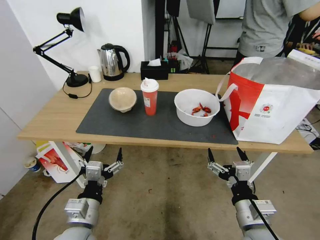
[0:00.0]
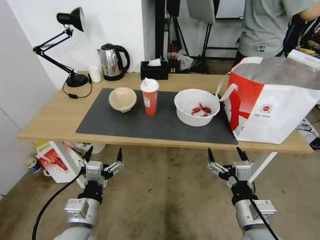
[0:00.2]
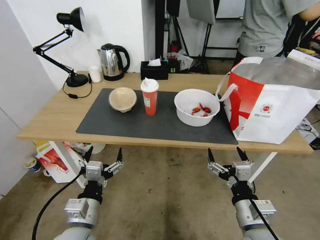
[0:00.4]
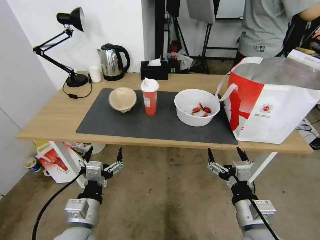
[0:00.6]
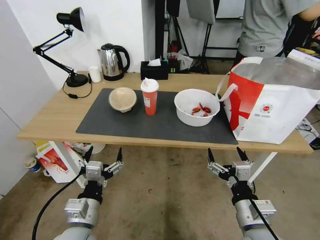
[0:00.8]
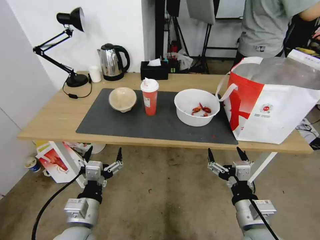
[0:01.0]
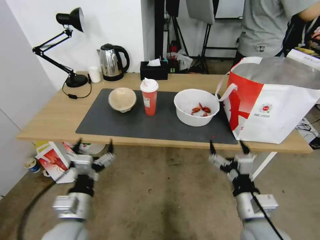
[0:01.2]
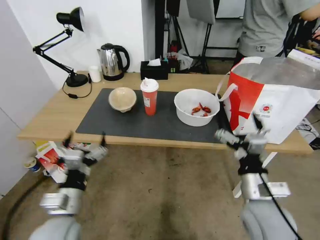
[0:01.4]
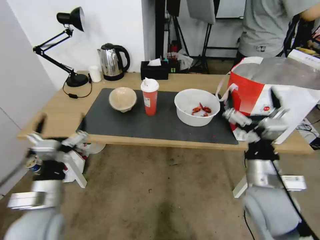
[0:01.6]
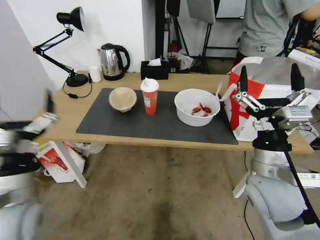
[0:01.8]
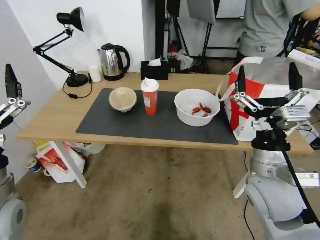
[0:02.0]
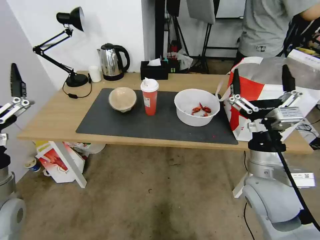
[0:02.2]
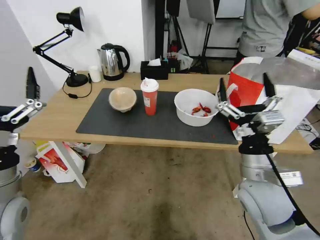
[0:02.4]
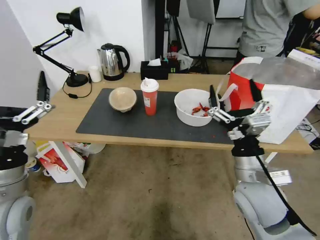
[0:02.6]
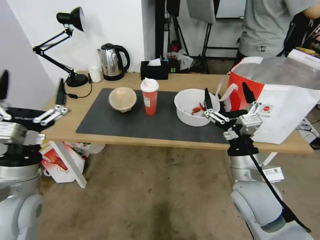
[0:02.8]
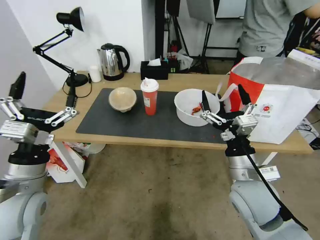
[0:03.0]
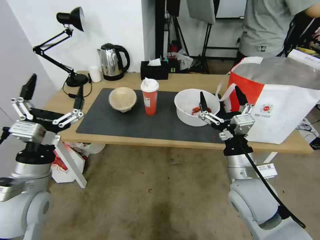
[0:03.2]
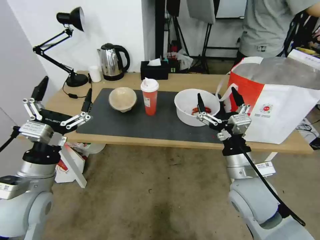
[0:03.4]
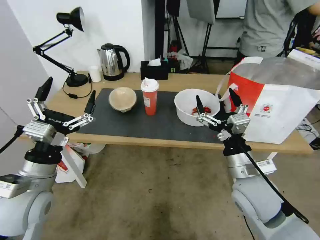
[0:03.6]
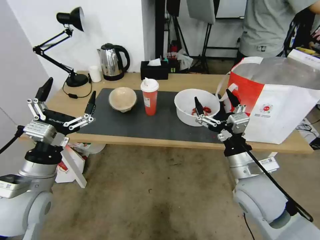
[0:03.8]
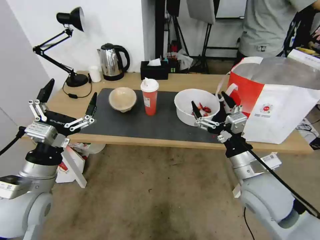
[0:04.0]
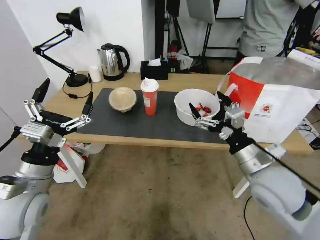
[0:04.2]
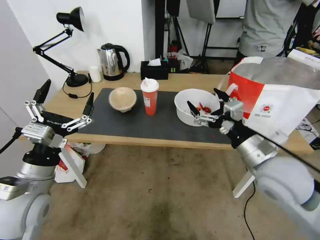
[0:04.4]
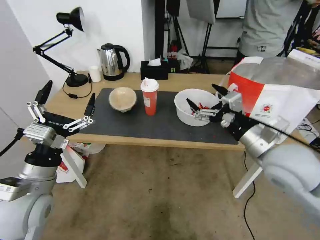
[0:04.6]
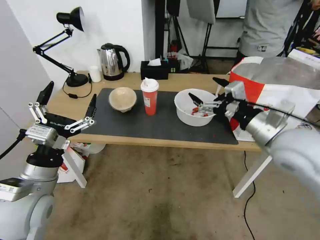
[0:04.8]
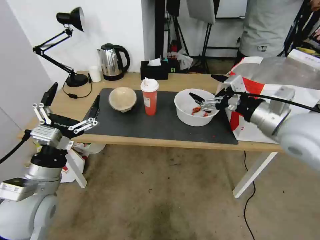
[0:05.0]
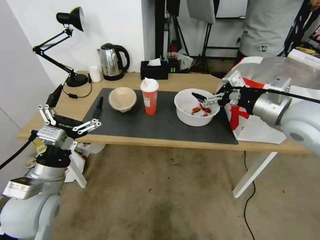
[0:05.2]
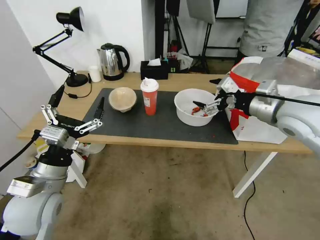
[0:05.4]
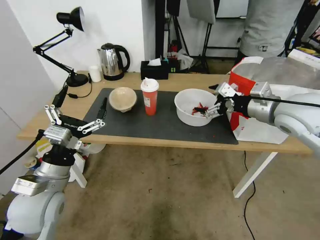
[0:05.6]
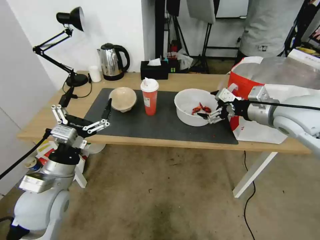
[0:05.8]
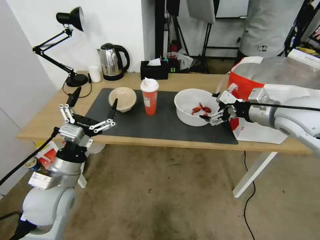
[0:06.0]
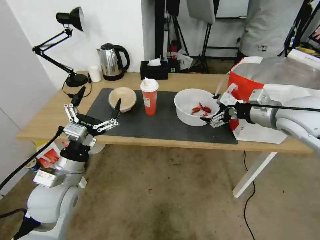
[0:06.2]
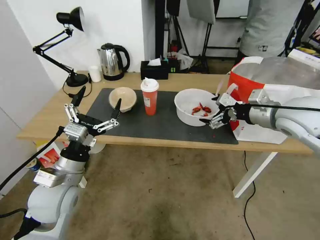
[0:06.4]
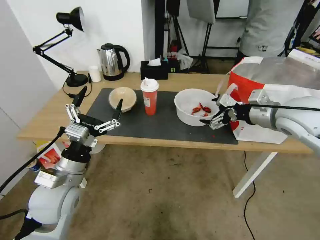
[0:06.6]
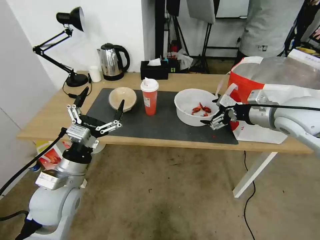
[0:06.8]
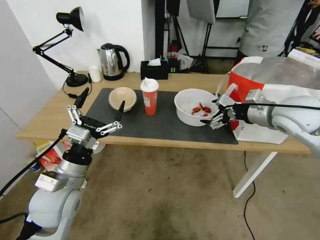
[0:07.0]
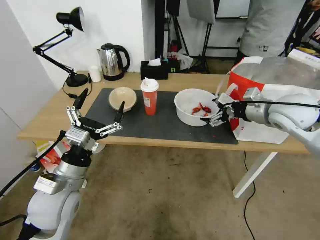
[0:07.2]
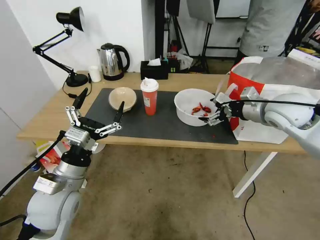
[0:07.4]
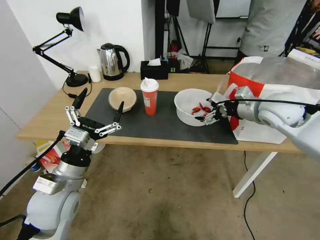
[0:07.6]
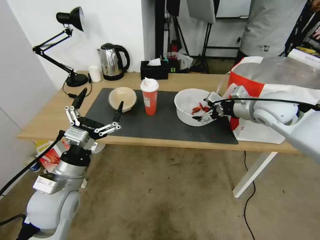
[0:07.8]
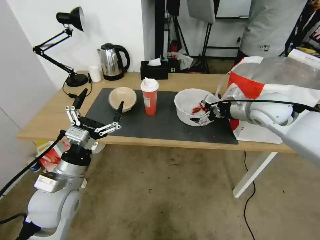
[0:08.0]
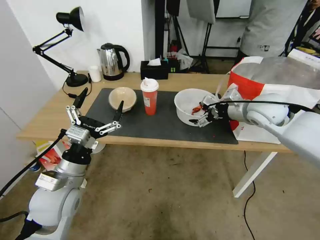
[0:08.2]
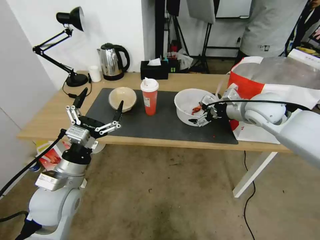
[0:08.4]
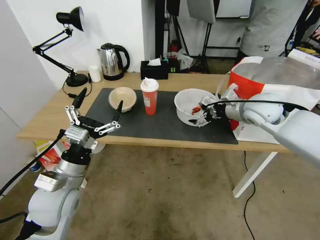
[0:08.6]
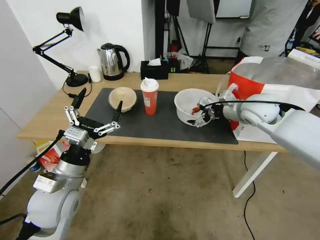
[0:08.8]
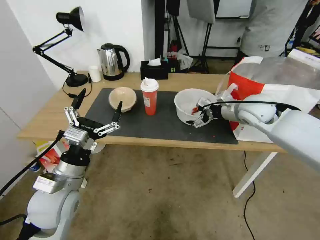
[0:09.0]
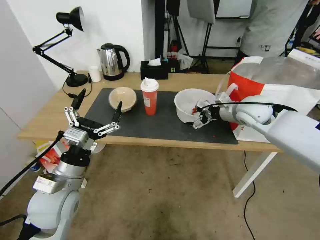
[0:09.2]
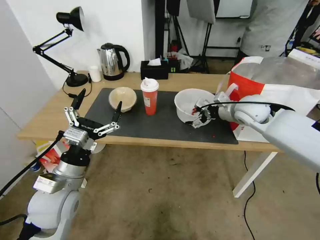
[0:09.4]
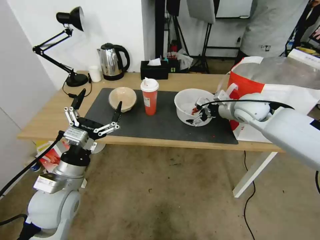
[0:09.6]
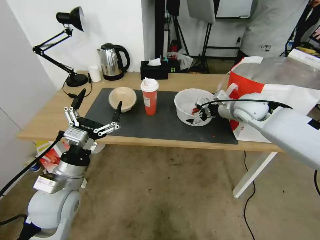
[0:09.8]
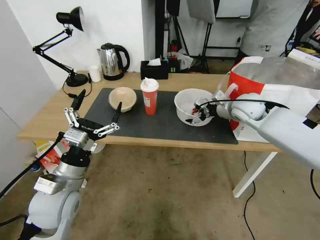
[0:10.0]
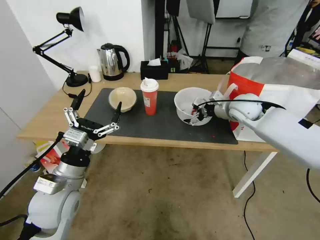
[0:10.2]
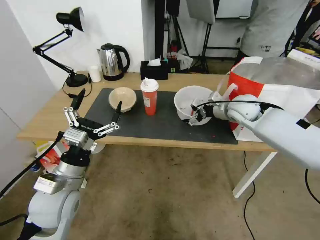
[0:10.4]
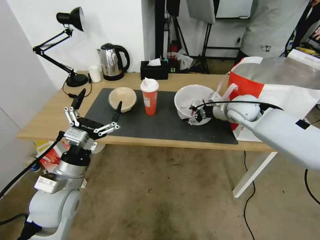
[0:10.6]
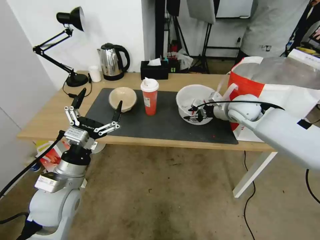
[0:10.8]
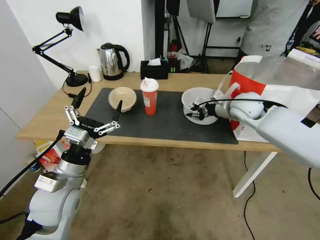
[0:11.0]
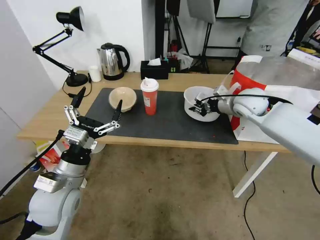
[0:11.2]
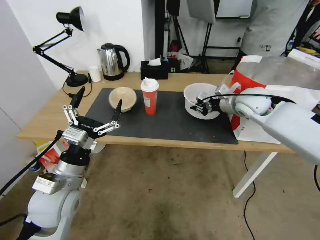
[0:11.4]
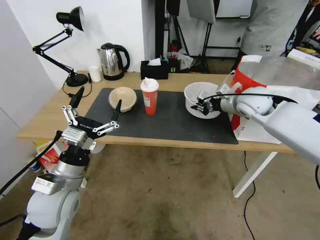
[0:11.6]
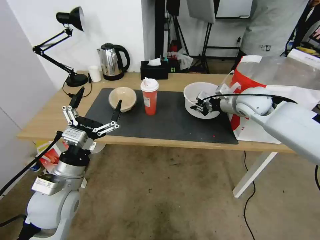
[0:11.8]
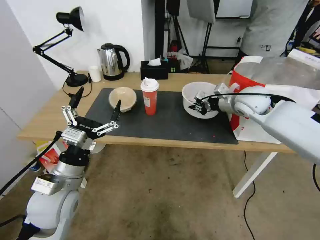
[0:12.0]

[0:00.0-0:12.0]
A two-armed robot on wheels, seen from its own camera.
Task of the whole recording: Pick up the trash from the table and place it into the takeout bag.
0:01.6 to 0:03.0: The left gripper travels upward by some 5 cm.
0:03.0 to 0:04.4: The right gripper heads upward, covering some 5 cm.
0:04.4 to 0:06.0: The left gripper shifts by about 5 cm. Meanwhile the right gripper is displaced forward, upward and to the right by roughly 15 cm.
0:06.0 to 0:07.6: The right gripper changes place by about 5 cm.
0:07.6 to 0:09.0: The right gripper changes place by approximately 5 cm.
0:09.0 to 0:10.4: The right gripper shifts by some 5 cm.
0:10.4 to 0:12.0: The right gripper closes its fingers.

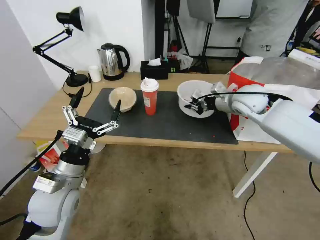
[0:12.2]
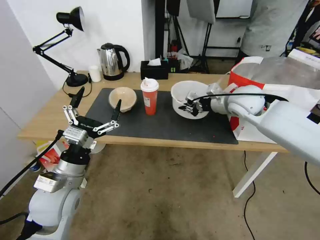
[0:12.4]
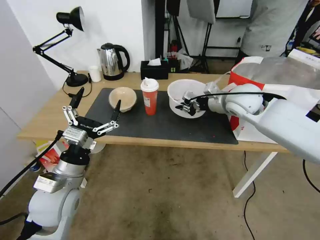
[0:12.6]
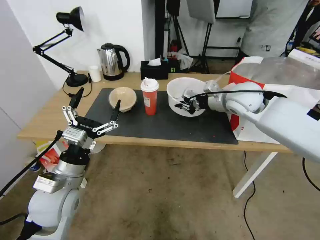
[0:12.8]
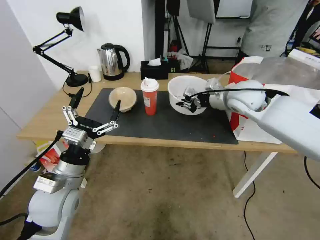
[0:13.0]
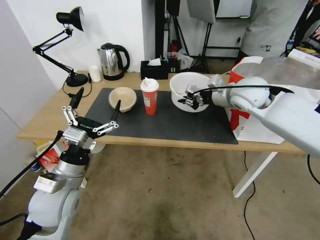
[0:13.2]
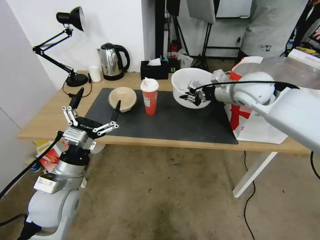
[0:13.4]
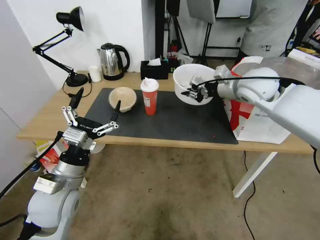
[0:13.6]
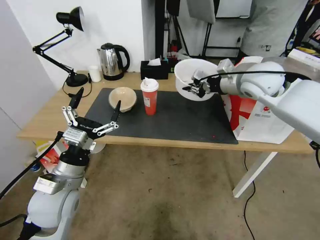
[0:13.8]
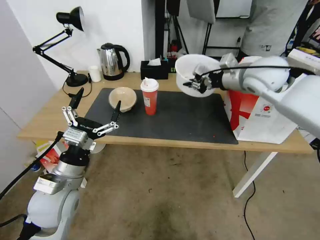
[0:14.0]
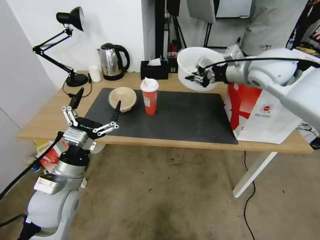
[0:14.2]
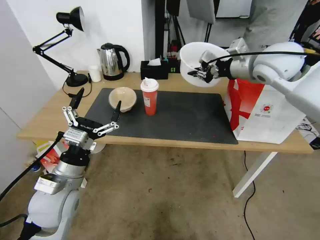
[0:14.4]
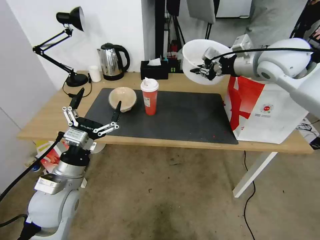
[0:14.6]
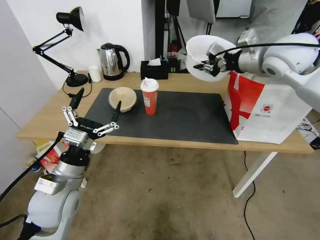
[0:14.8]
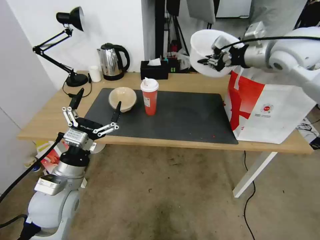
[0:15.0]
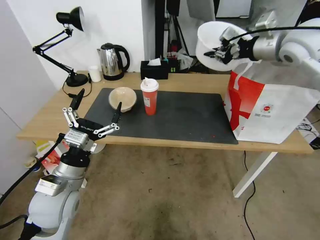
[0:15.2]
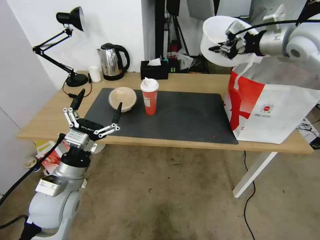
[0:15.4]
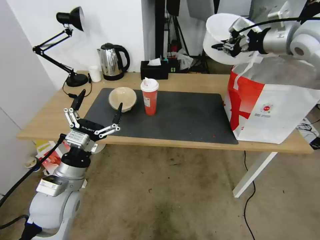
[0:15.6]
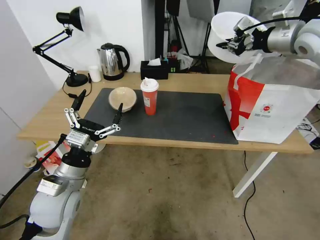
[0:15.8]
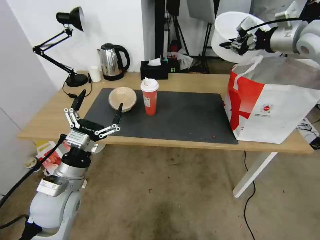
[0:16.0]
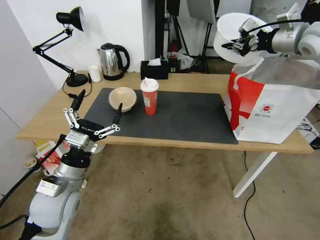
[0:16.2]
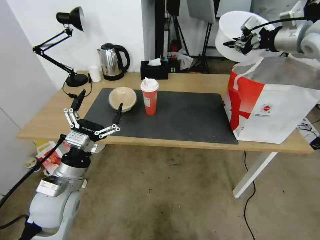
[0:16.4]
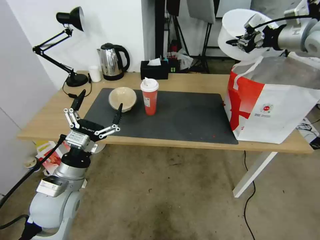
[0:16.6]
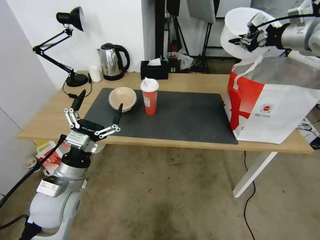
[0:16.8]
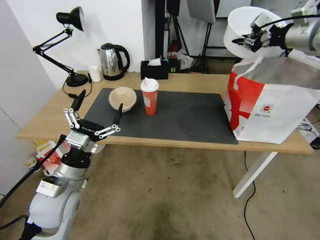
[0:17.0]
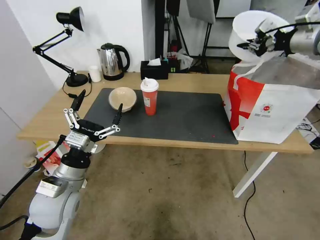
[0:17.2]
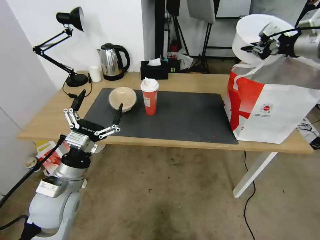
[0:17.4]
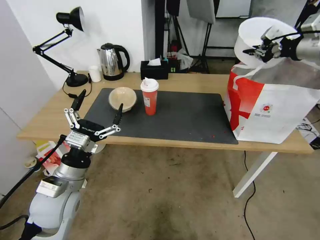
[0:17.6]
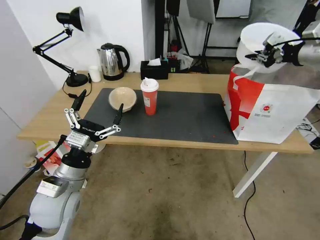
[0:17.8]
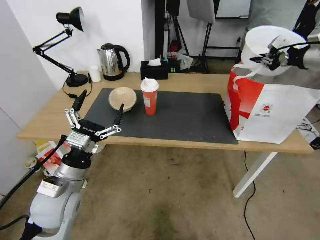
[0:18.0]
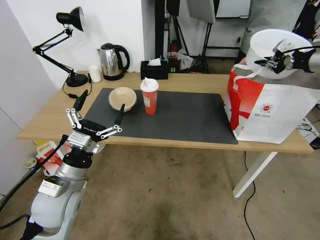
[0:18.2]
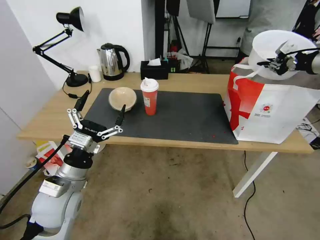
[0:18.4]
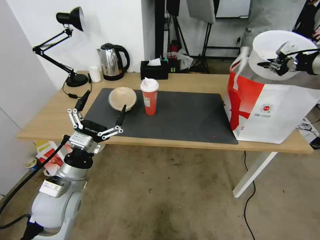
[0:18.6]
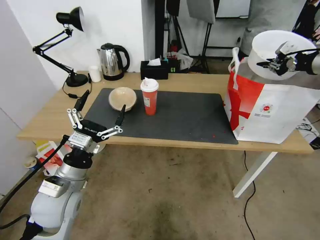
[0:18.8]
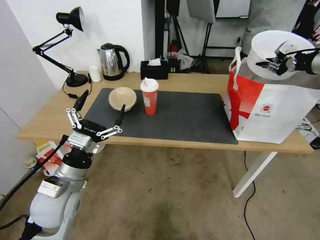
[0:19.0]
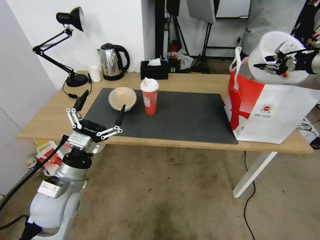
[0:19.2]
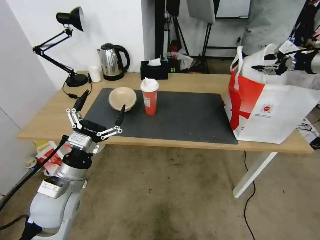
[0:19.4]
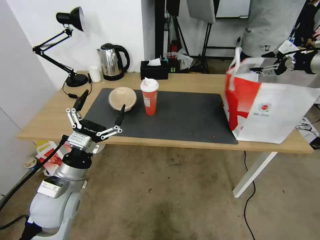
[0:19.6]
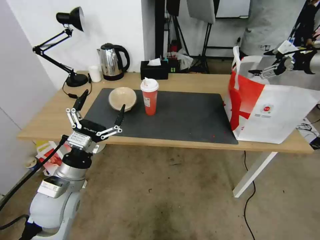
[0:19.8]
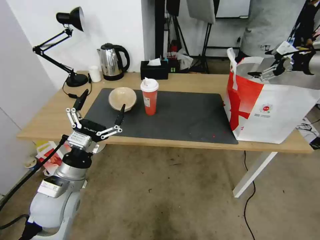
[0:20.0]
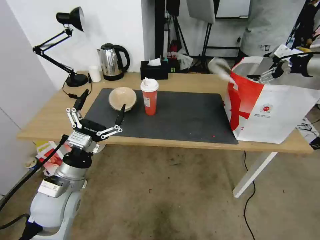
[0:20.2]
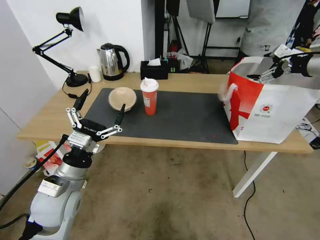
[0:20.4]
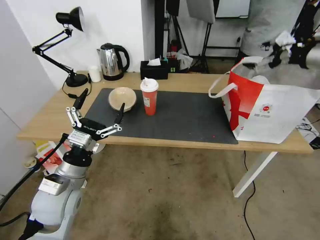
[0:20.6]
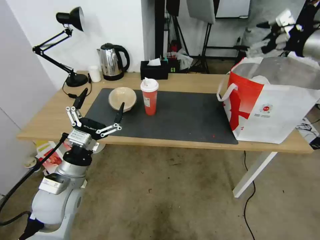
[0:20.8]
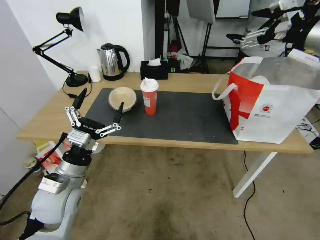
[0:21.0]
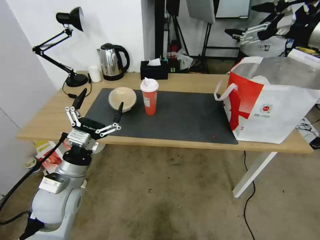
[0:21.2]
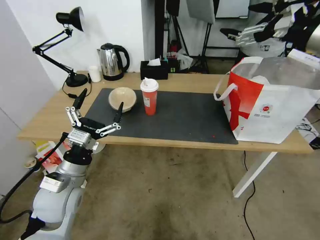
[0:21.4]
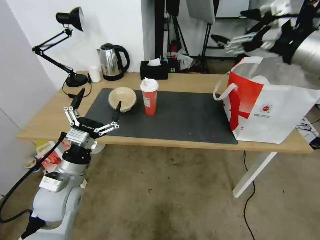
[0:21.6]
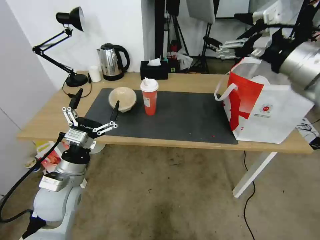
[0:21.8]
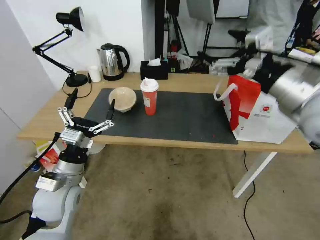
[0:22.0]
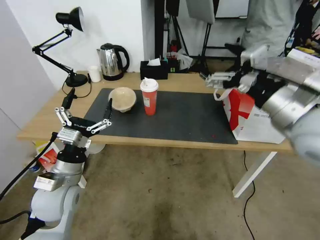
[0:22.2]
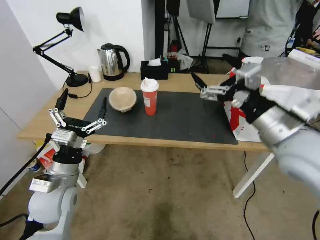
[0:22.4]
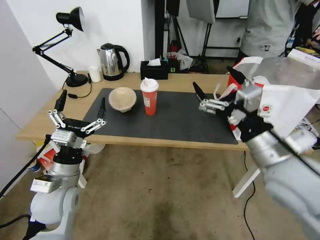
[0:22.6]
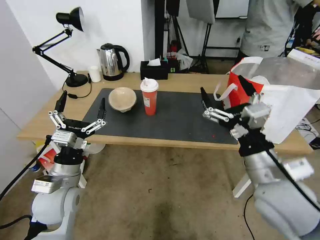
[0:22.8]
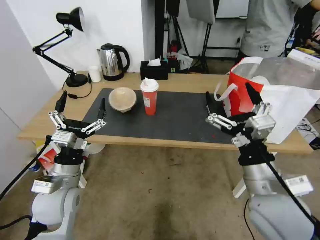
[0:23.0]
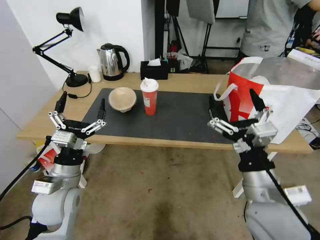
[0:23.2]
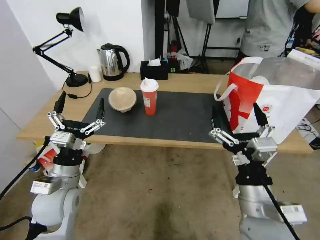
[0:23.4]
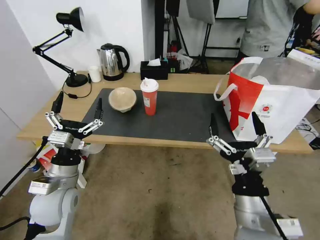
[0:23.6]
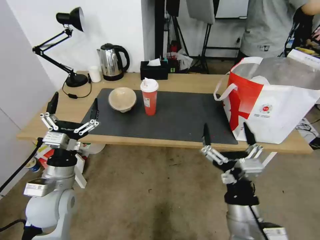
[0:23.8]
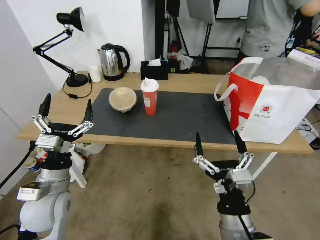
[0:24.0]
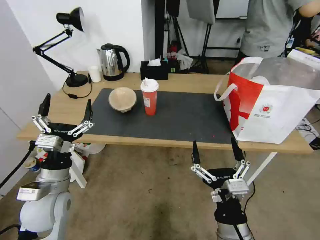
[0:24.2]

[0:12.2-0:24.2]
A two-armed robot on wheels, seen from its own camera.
Task of the whole recording: Pick up the trash from the table and place it into the takeout bag.
0:12.2 to 0:13.8: The right gripper is displaced upward by about 10 cm.
0:13.8 to 0:15.2: The right gripper moves upward and to the right, about 10 cm.
0:15.2 to 0:16.6: The right gripper moves to the right, about 5 cm.
0:16.6 to 0:18.2: The right gripper is displaced to the right by about 10 cm.
0:18.2 to 0:19.8: The right gripper opens its fingers.
0:19.8 to 0:21.2: The right gripper goes some 15 cm to the left, backward and upward.
0:21.2 to 0:22.6: The right gripper moves downward, backward and to the left, approximately 30 cm.
0:22.6 to 0:24.2: The right gripper travels downward, backward and to the left by about 20 cm.
